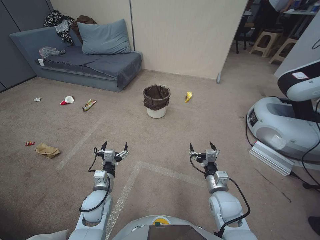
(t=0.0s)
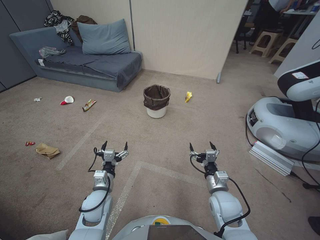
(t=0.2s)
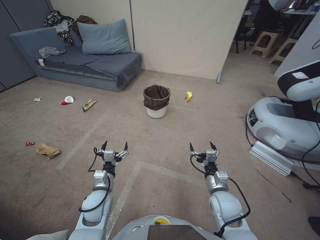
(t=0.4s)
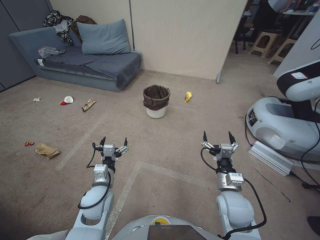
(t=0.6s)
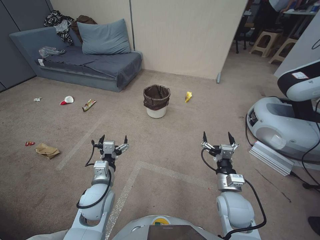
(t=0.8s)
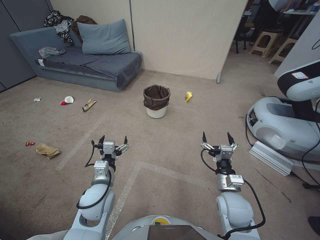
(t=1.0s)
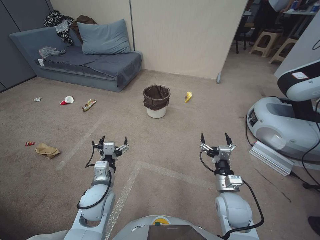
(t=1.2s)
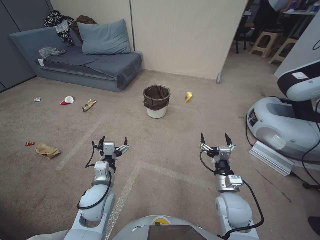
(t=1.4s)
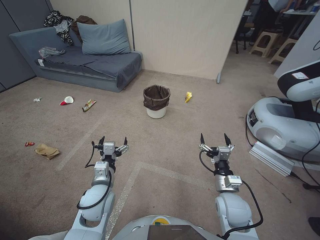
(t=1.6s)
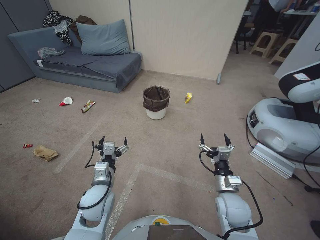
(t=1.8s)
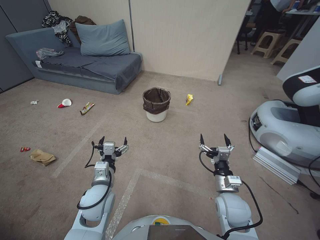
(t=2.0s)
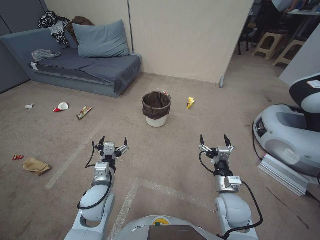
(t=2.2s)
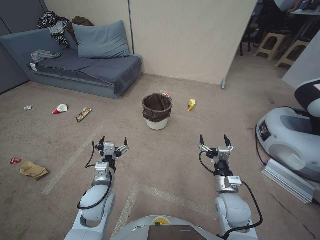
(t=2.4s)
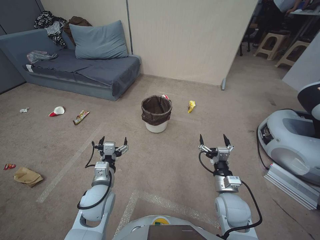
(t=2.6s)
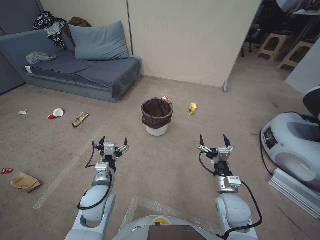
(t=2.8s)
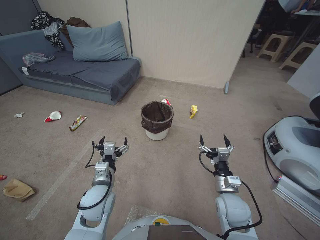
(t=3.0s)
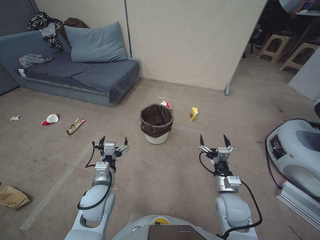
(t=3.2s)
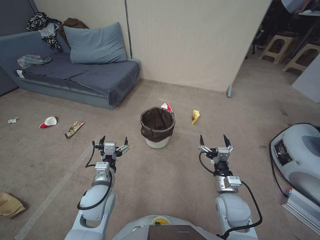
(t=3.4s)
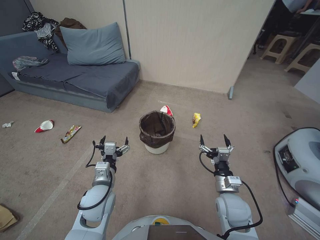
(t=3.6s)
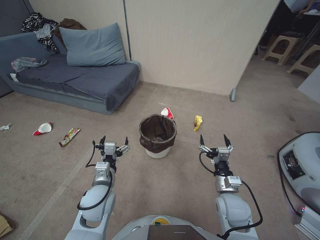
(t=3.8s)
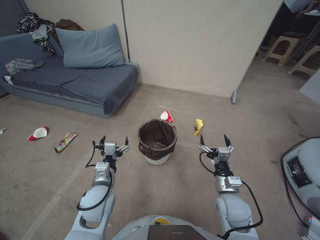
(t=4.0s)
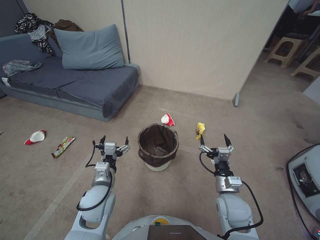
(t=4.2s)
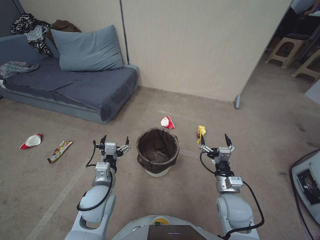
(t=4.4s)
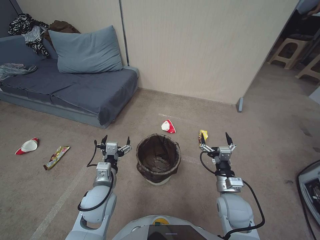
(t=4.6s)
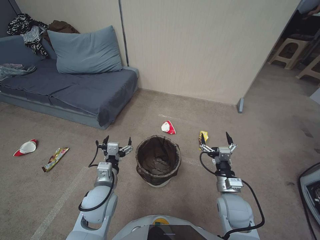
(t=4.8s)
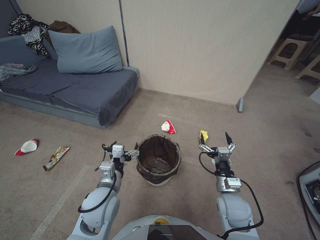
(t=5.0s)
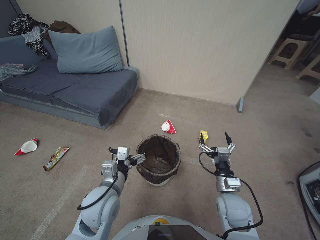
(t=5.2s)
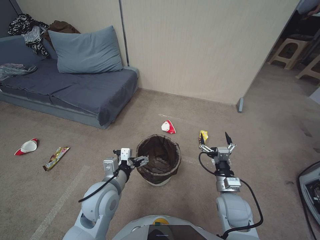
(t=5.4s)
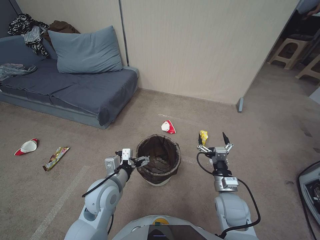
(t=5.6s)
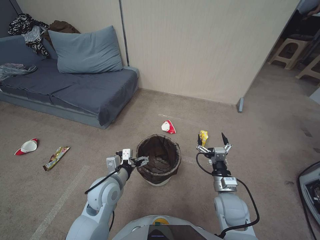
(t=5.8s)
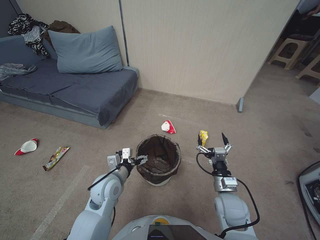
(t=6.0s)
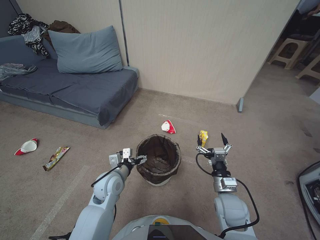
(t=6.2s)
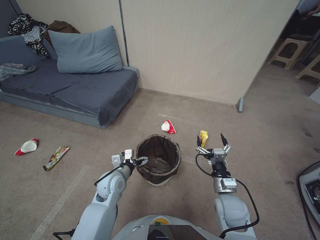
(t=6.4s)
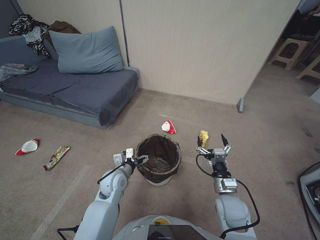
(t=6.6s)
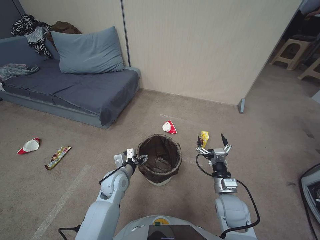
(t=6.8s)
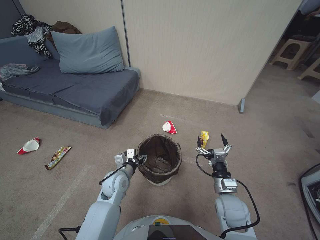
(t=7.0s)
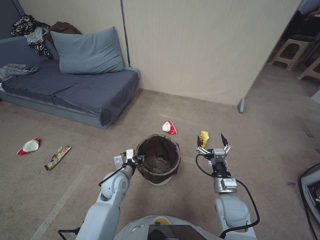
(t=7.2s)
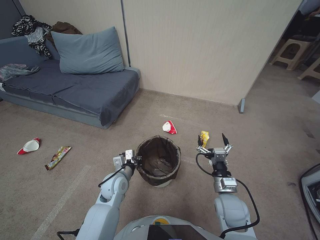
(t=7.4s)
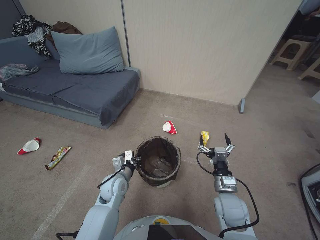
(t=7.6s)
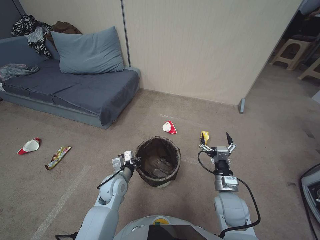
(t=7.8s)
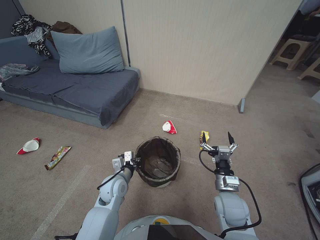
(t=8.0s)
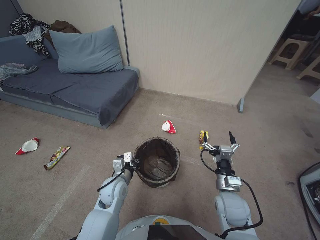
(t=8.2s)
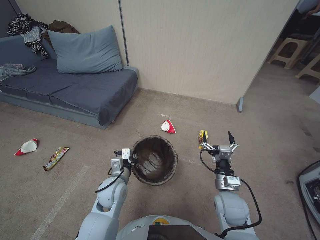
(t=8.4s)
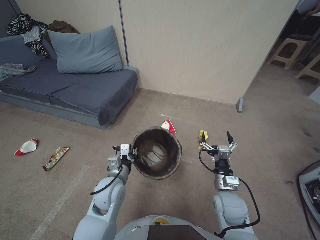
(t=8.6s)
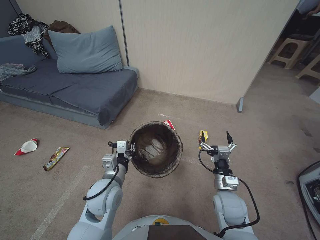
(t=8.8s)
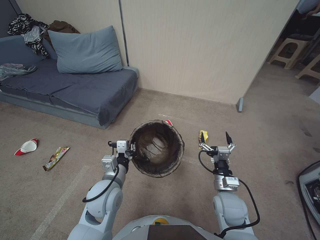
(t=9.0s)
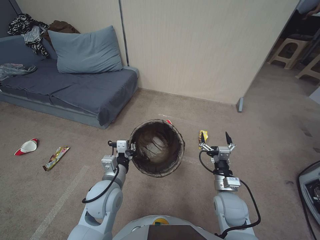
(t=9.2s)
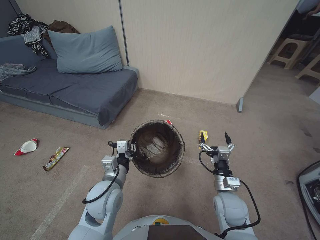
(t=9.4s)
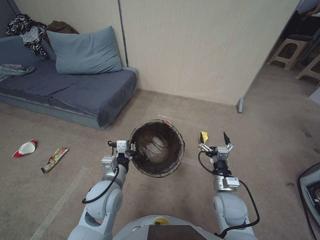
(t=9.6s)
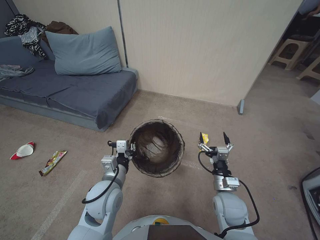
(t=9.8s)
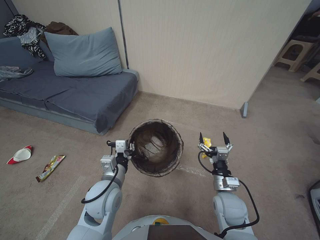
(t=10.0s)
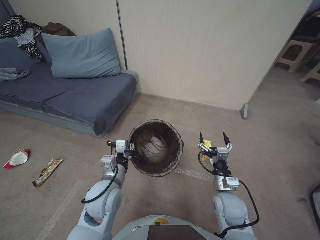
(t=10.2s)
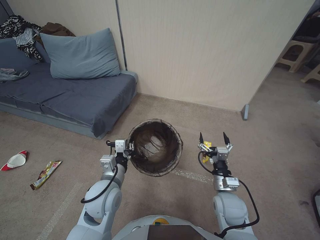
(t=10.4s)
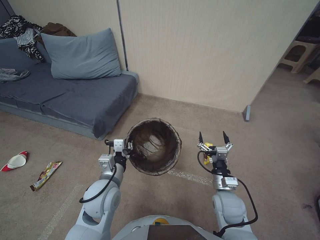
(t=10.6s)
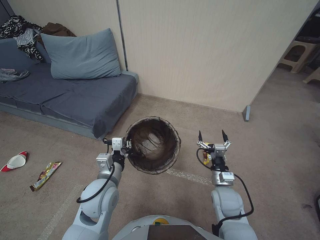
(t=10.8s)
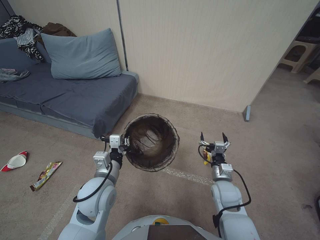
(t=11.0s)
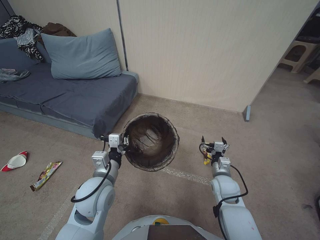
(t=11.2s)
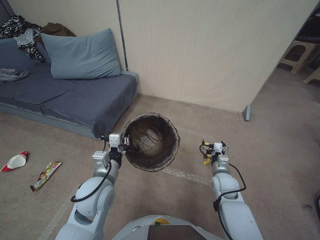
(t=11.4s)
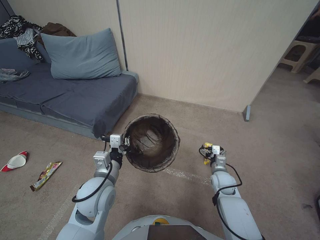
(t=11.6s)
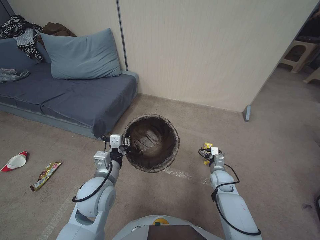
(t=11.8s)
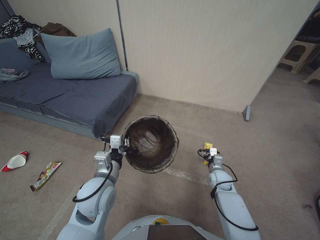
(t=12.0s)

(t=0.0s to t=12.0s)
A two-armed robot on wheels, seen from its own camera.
Task of the whole recording: Pick up the trash bin, then pick up the garbage from the floor and place it into the trash bin.
t=6.0s - t=7.6s: The left gripper travels downward by about 5 cm, and closes up.
t=7.6s - t=9.0s: The left gripper goes about 5 cm upward.
t=9.0s - t=10.4s: There are only small adjustments of the grippers.
t=10.4s - t=12.0s: The right gripper is displaced forward, downward and to the right by approximately 15 cm.

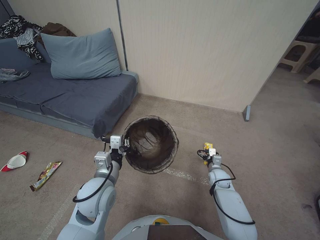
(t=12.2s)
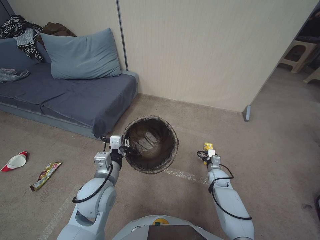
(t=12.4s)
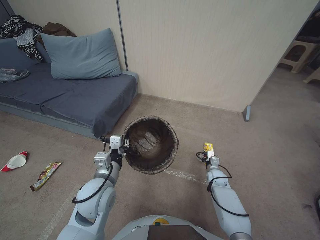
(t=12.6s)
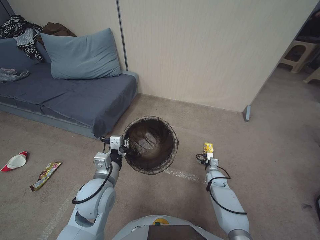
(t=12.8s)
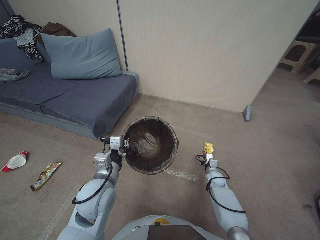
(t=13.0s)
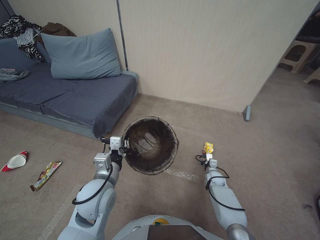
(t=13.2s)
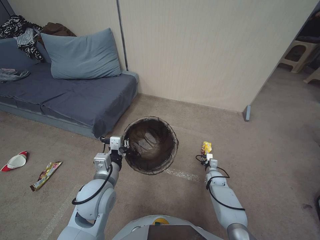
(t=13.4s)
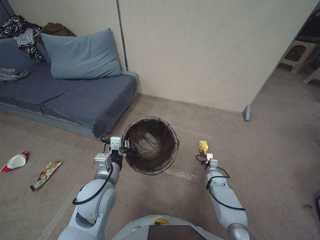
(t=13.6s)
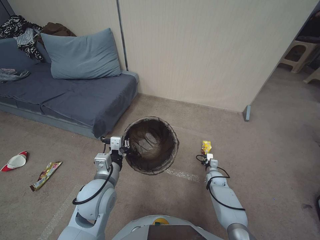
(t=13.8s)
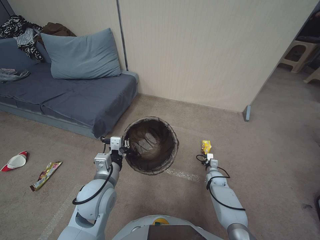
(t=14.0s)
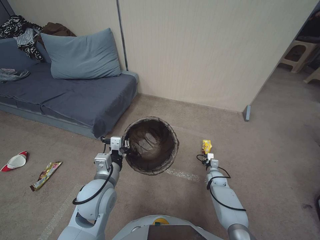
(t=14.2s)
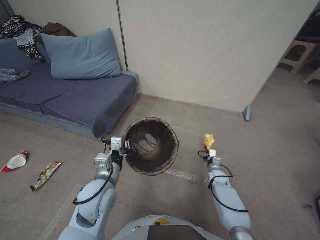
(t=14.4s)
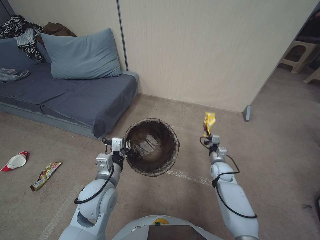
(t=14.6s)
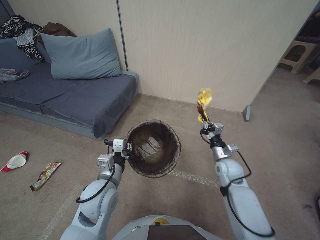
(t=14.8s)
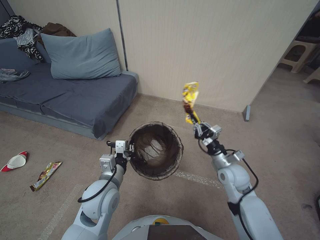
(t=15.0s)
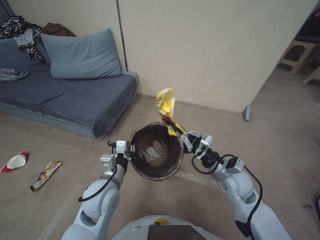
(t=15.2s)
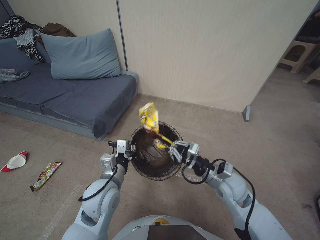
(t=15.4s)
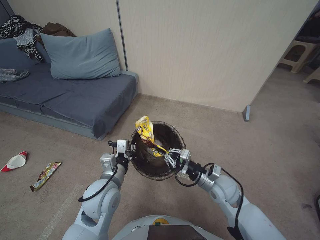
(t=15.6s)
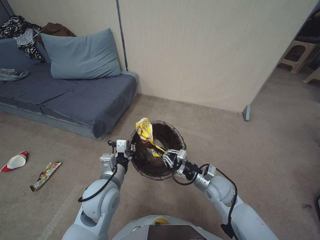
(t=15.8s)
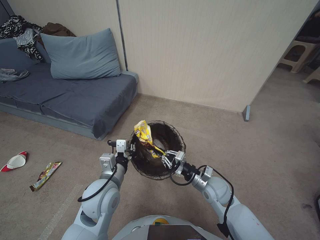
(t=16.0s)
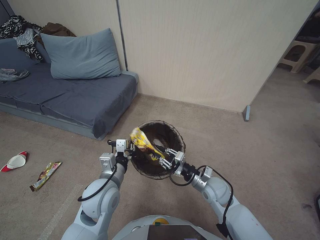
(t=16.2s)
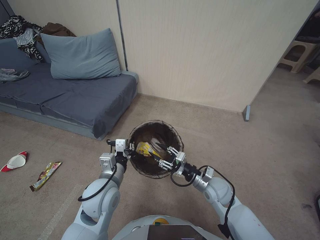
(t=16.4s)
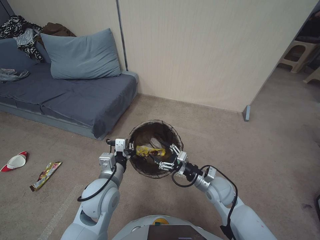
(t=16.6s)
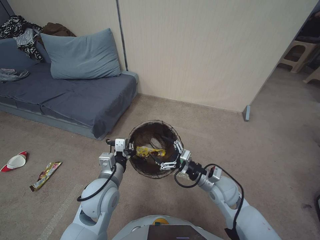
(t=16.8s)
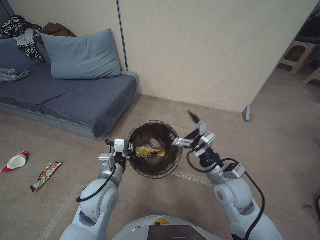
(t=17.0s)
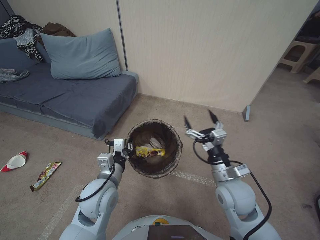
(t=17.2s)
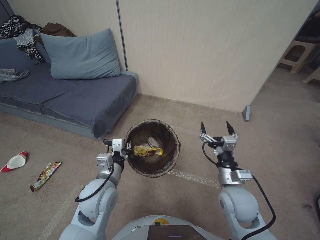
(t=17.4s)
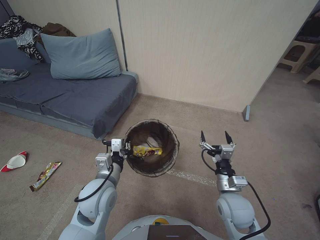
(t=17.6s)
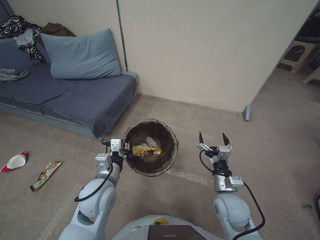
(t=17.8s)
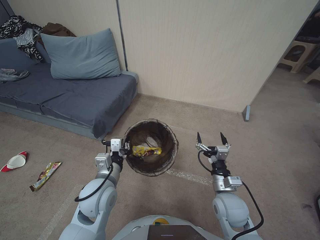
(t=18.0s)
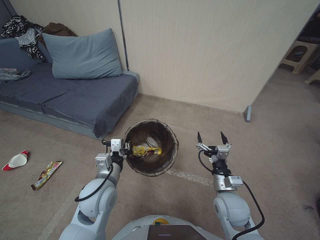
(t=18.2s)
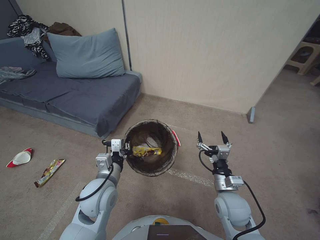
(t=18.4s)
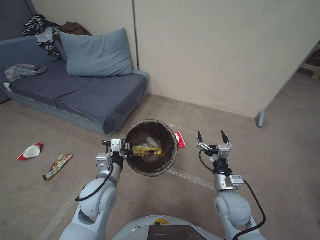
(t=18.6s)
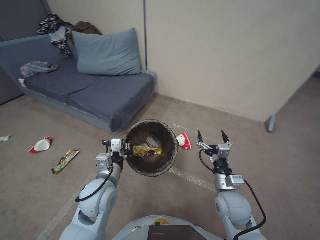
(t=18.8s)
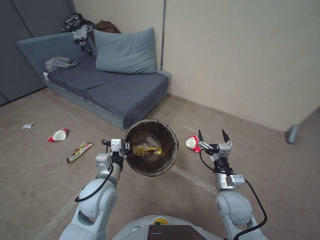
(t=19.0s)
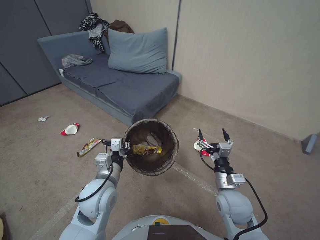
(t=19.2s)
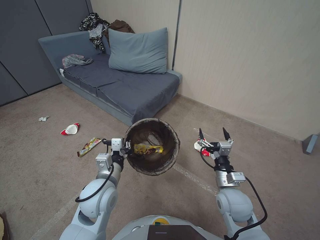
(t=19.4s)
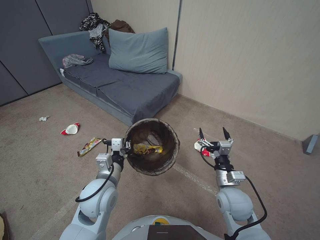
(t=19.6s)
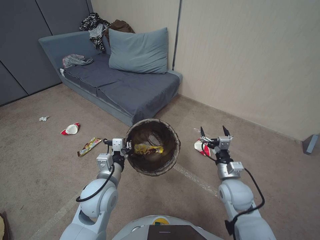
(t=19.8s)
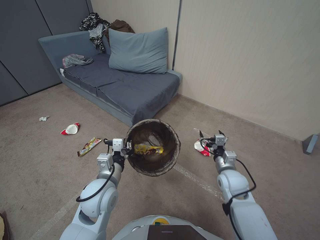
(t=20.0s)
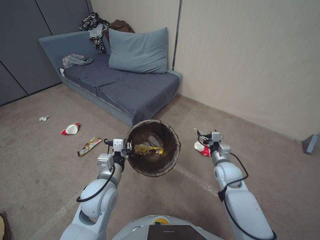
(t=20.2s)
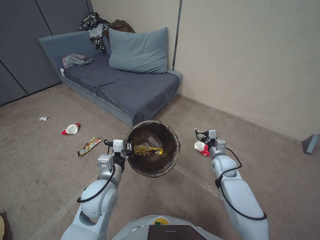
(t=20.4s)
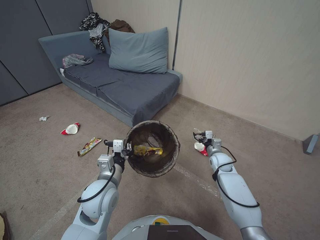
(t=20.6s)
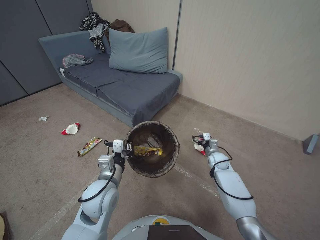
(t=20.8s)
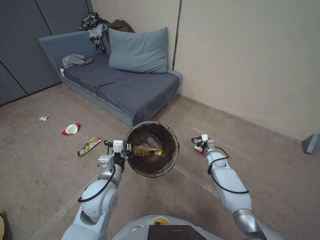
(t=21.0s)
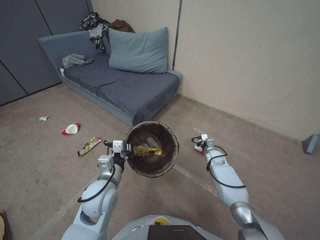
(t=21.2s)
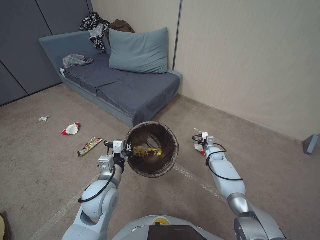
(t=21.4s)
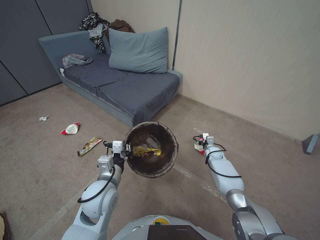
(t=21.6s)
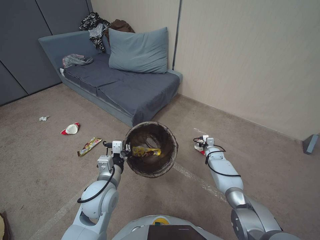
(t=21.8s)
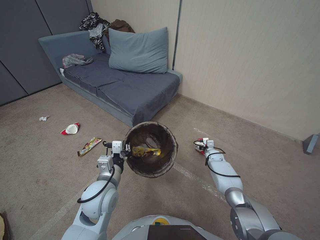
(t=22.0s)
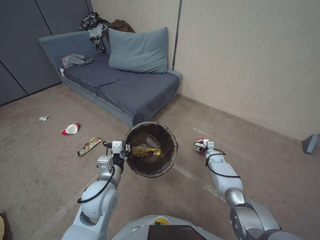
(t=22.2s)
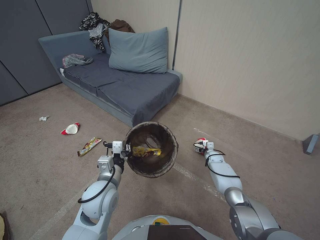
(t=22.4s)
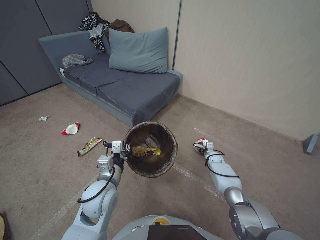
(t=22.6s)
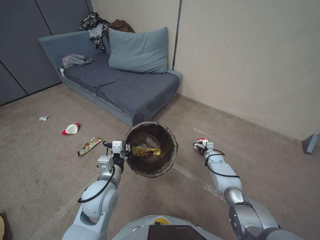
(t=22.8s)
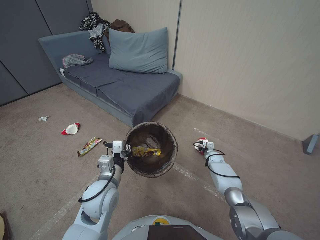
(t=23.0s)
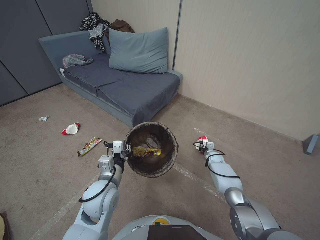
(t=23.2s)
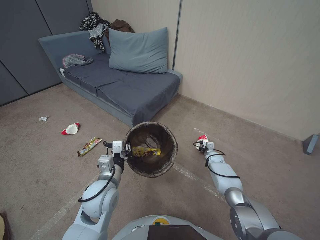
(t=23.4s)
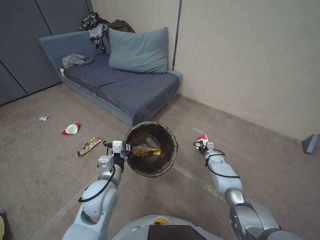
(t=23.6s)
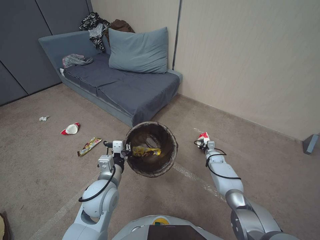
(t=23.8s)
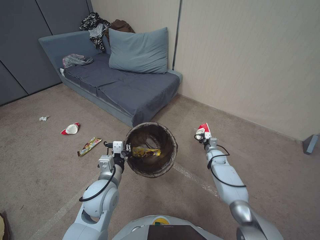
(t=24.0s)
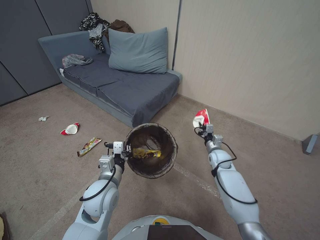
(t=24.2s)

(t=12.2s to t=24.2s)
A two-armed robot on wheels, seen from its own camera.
Task of the whole recording: Pick up the trash bin, then pick up the garbage from the floor and place it into the trash bin.
t=12.2s - t=13.8s: The right gripper goes some 10 cm downward, and closes up.
t=13.8s - t=15.2s: The right gripper shifts approximately 25 cm upward.
t=15.2s - t=16.6s: The right gripper is displaced downward by approximately 5 cm, and opens.
t=16.6s - t=18.2s: The right gripper heads backward, covering approximately 5 cm, goes upward and returns, some 10 cm each way, and opens its fingers.
t=19.8s - t=21.2s: The right gripper goes about 25 cm forward and downward.
t=21.2s - t=22.6s: The right gripper shifts about 5 cm downward.
t=22.6s - t=24.2s: The right gripper moves upward, some 10 cm, and closes.
